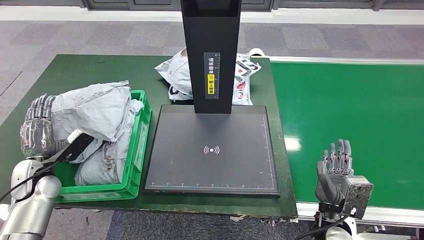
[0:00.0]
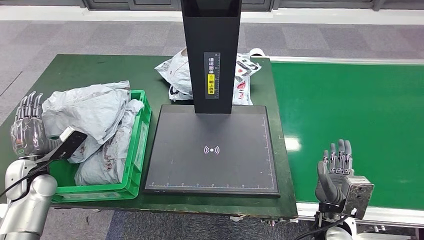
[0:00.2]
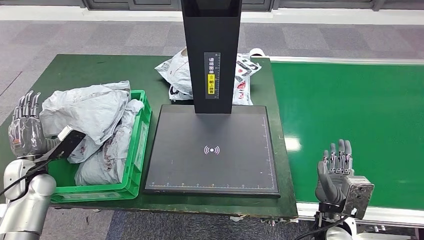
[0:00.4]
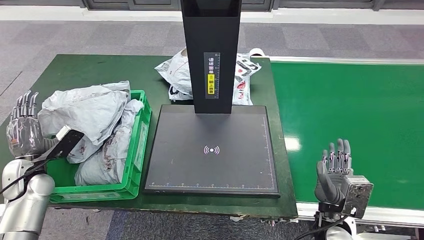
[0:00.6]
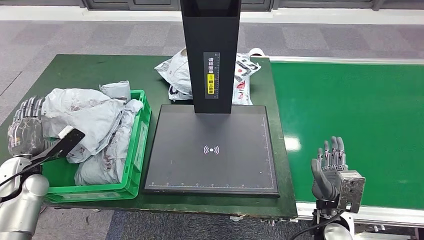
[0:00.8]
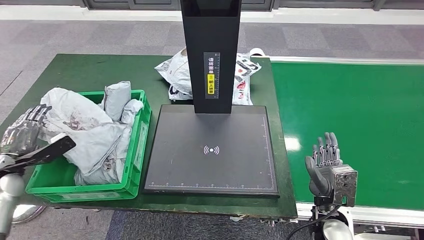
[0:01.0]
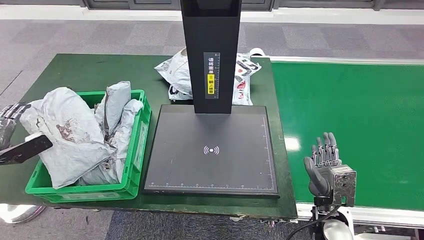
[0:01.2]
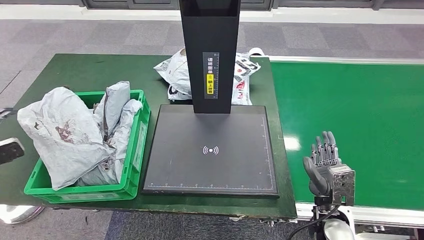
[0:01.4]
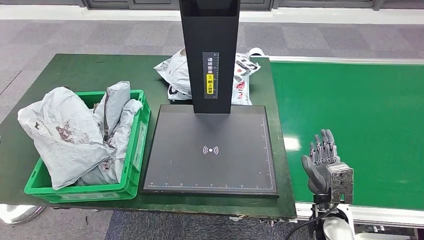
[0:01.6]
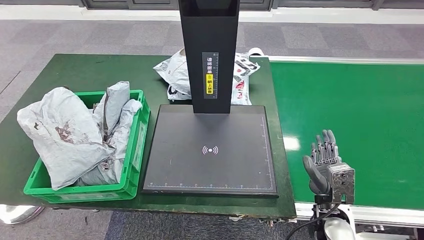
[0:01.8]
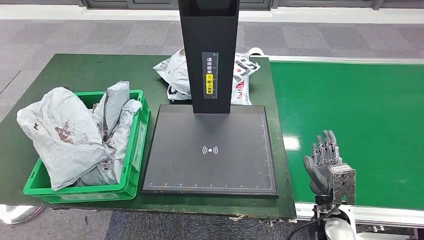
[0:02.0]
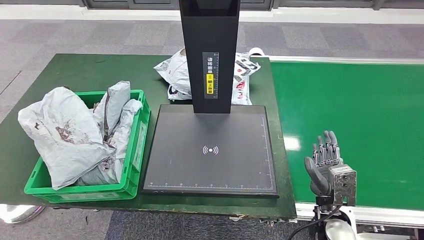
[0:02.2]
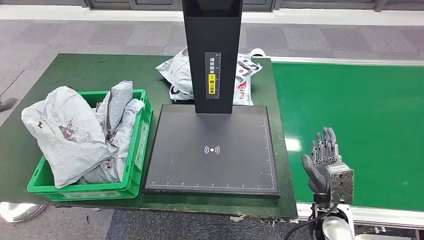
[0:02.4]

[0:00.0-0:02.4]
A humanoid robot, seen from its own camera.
Step, 0:00.0 to 0:02.4: Place the parcel into the delivery box.
0:00.0 to 0:01.2: The left hand goes about 15 cm to the left and upward.
0:01.2 to 0:02.4: The left hand is displaced upward by roughly 10 cm.
